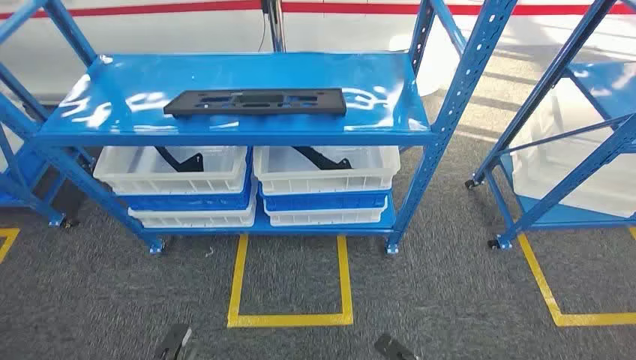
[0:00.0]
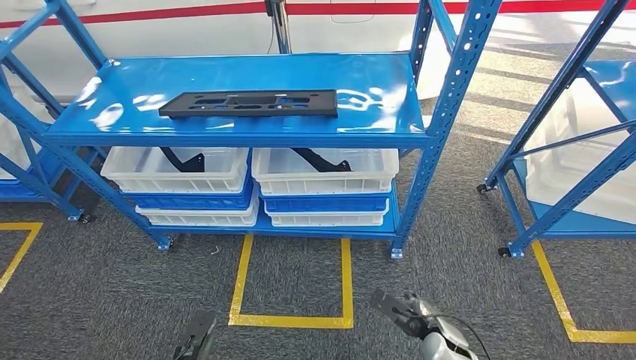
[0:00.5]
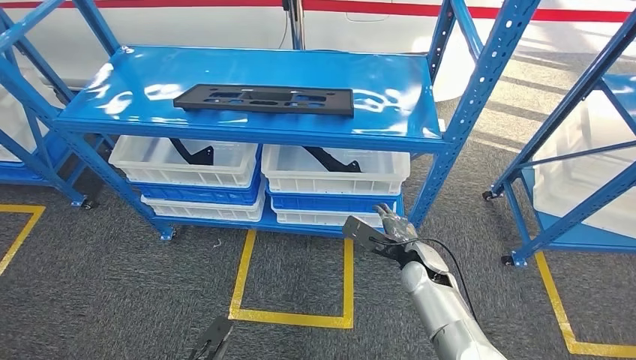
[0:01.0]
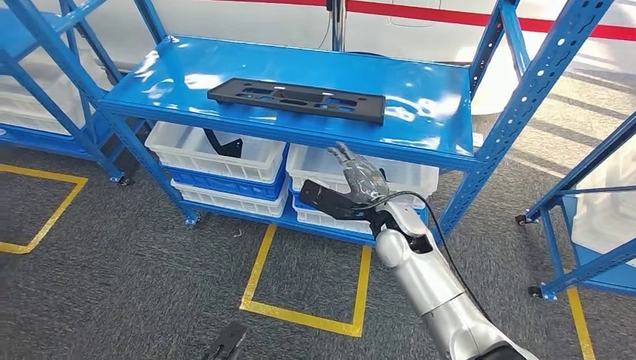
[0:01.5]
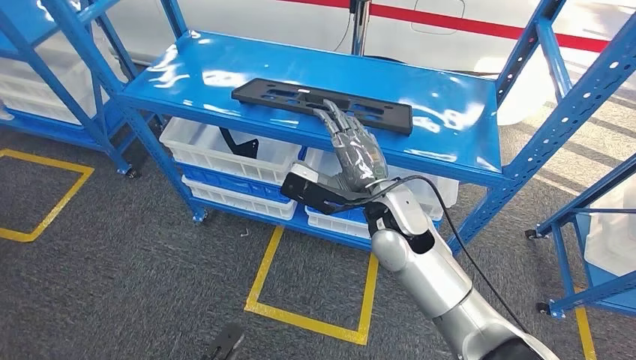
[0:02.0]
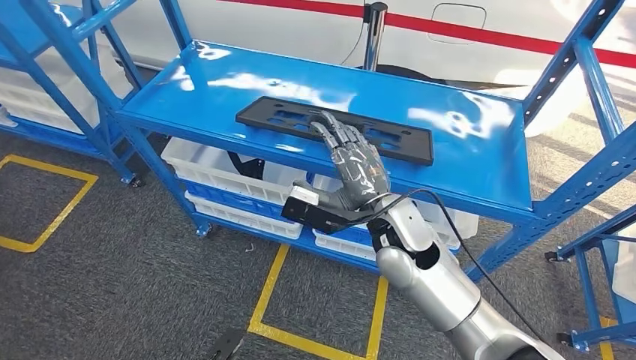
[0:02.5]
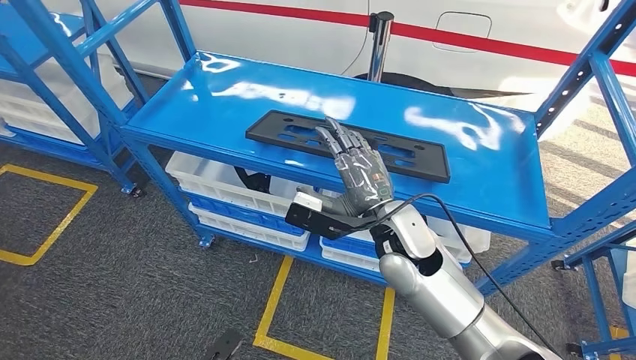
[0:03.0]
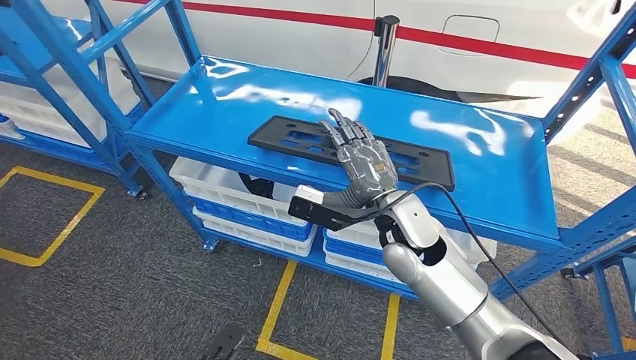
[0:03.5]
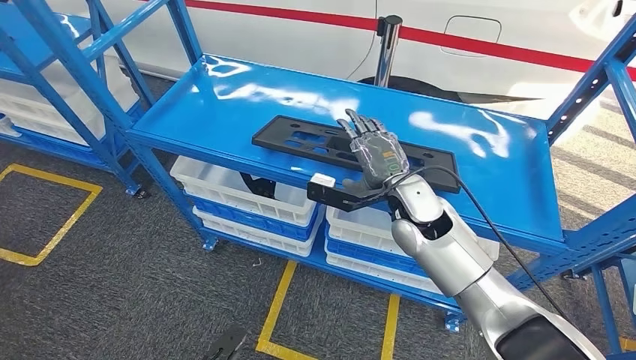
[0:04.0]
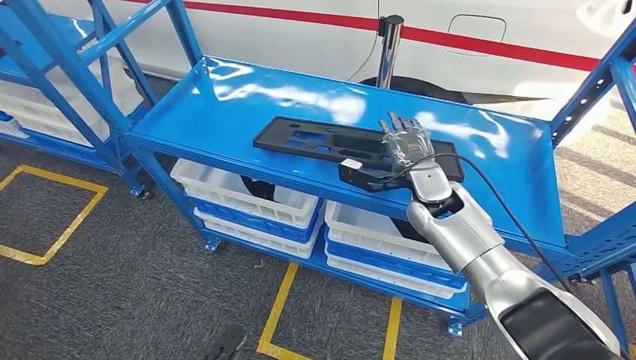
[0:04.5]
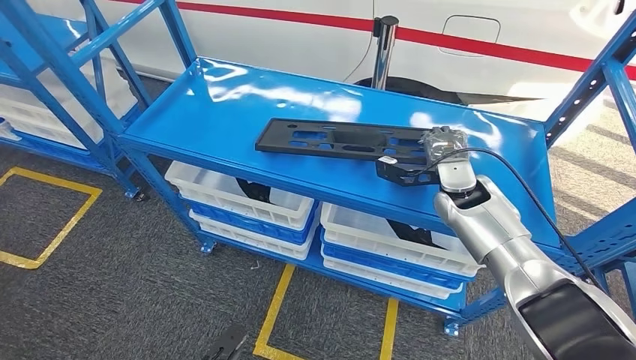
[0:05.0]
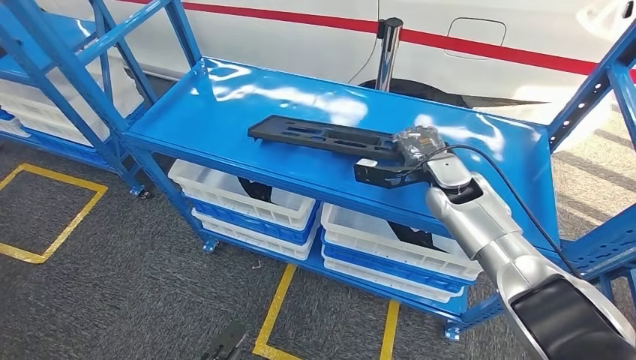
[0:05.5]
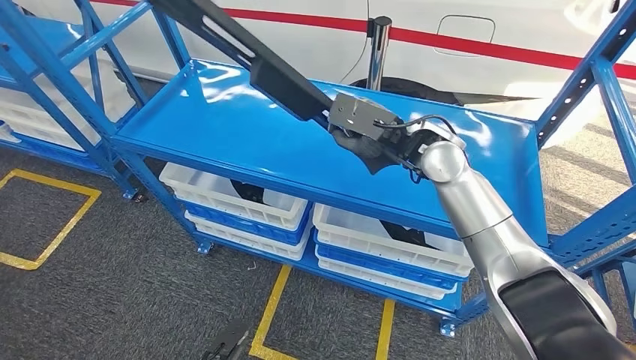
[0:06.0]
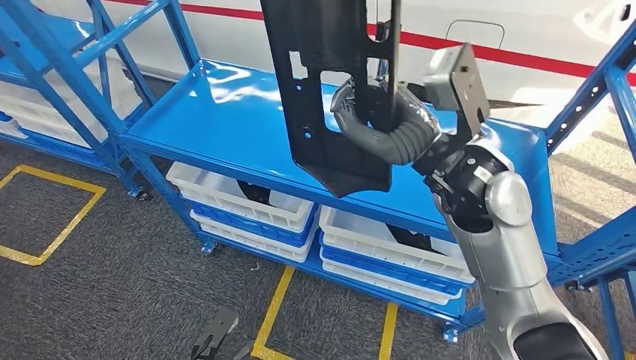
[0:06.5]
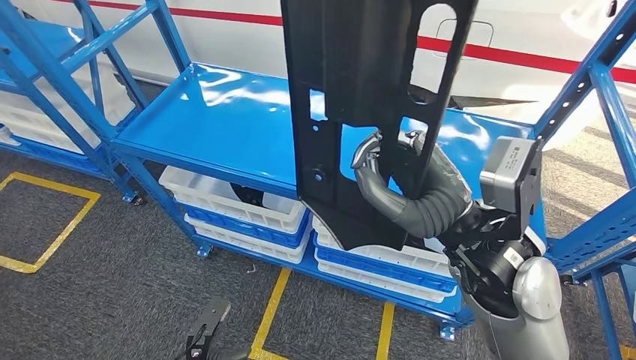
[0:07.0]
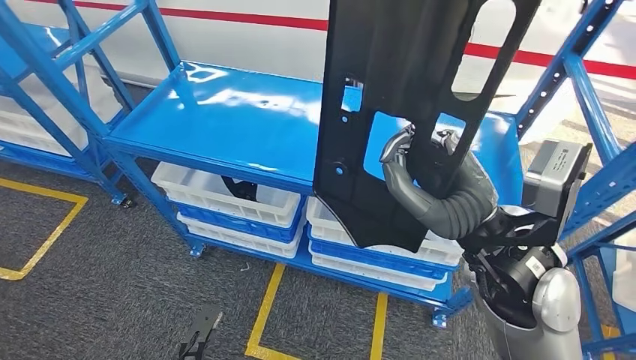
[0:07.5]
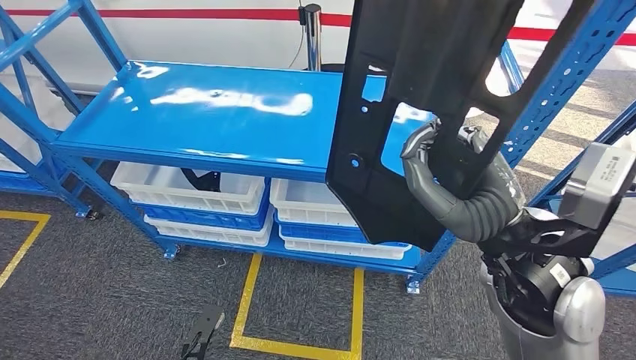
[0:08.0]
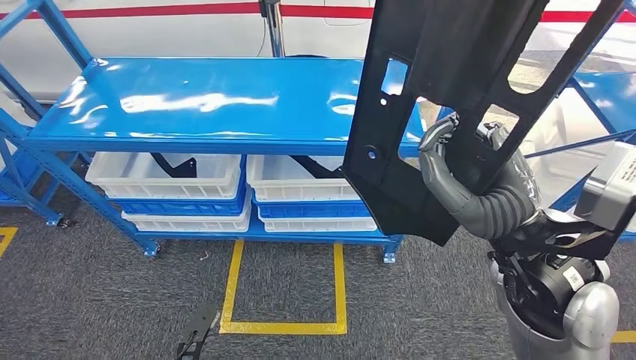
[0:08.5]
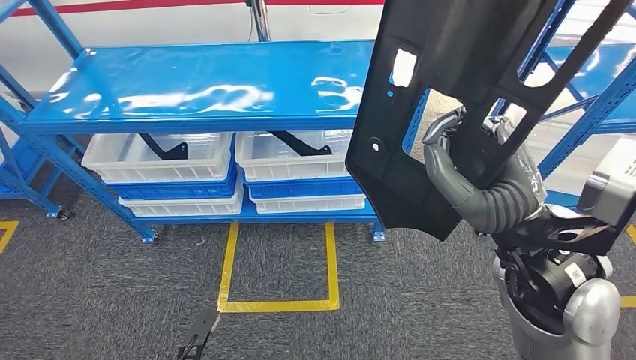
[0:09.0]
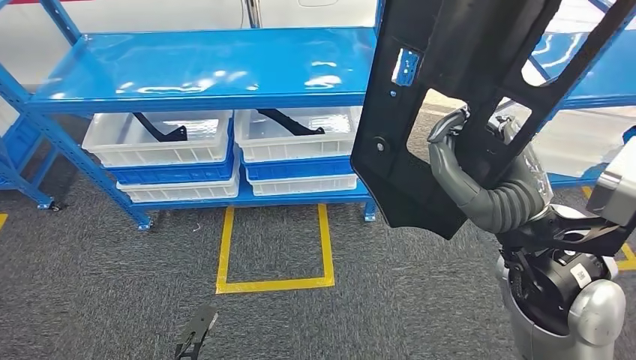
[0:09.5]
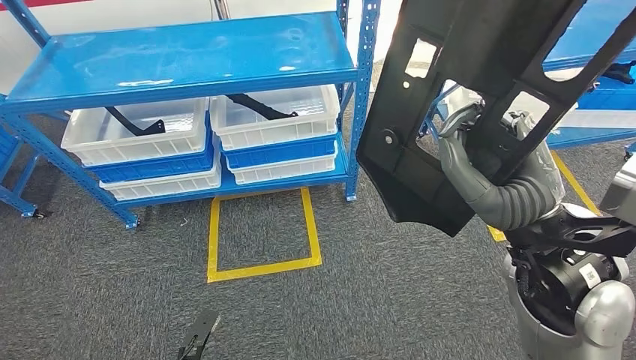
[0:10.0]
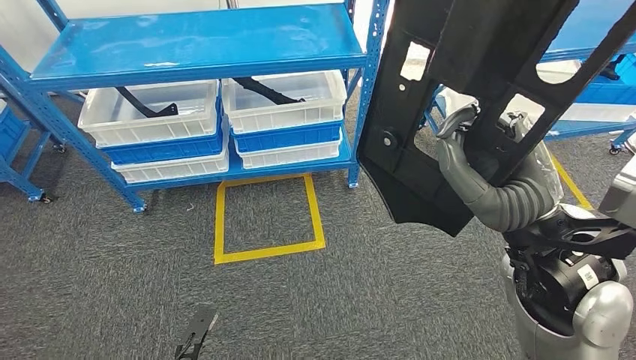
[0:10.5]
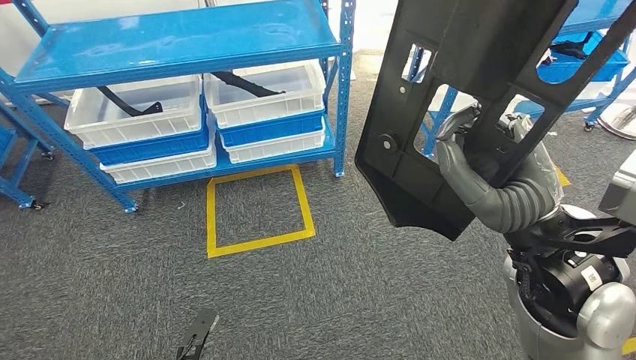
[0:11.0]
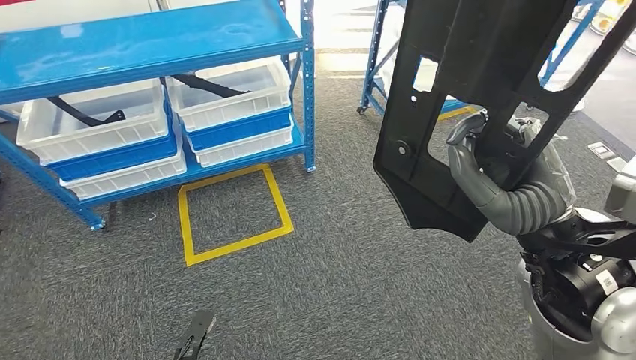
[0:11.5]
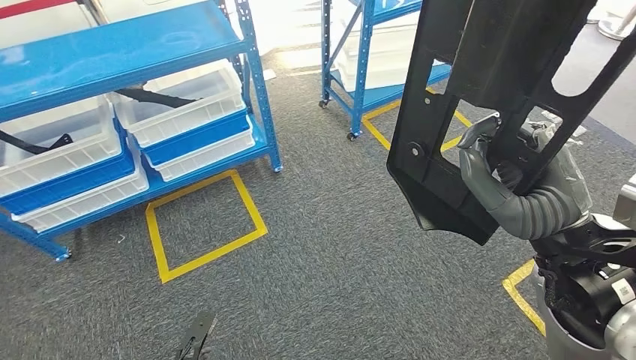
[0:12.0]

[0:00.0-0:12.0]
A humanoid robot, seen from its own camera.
Step, 0:00.0 to 0:07.5: Pick up the large material from the shelf.

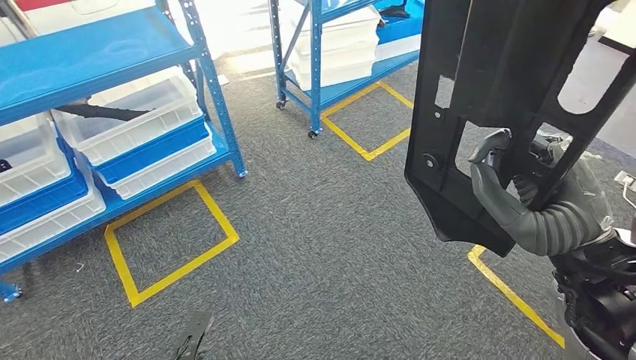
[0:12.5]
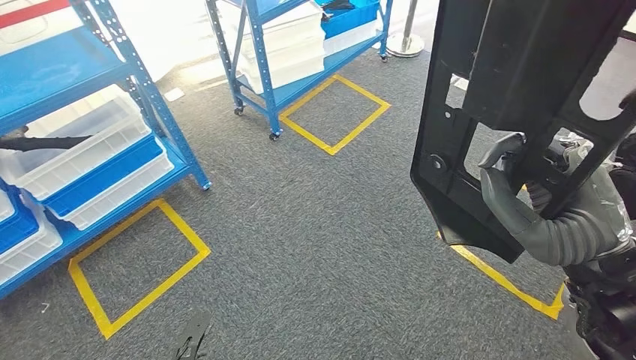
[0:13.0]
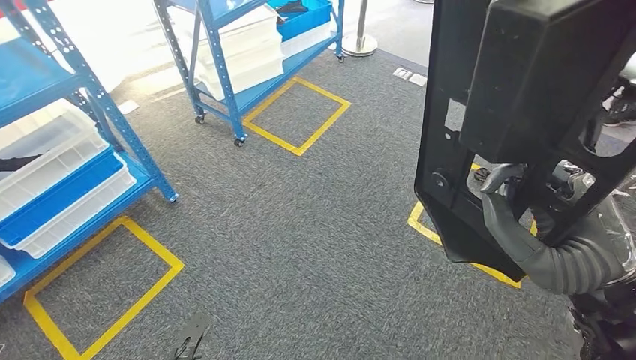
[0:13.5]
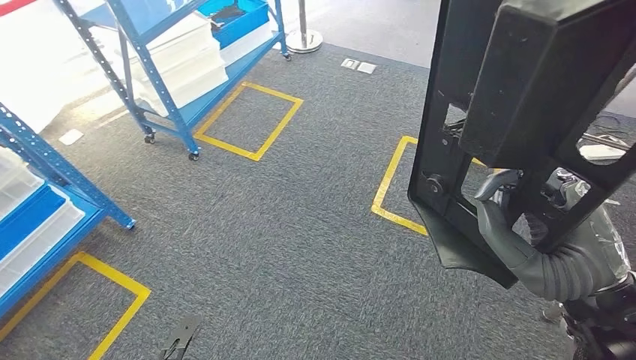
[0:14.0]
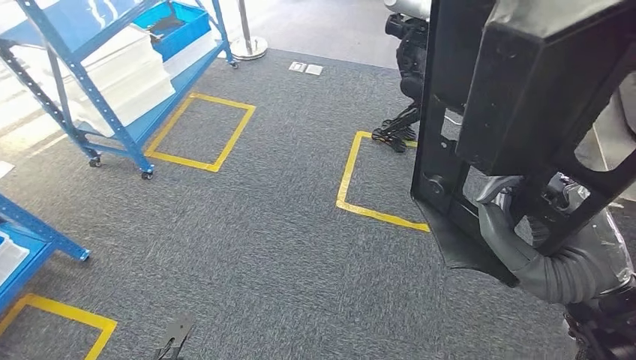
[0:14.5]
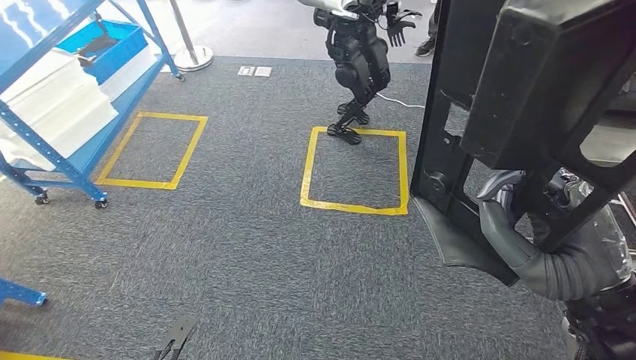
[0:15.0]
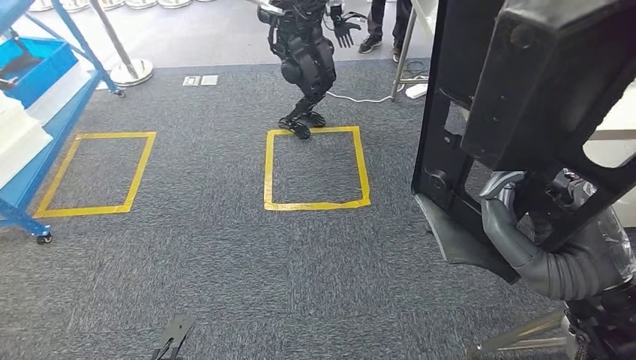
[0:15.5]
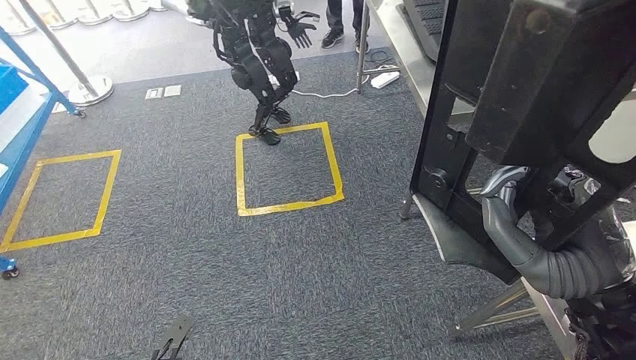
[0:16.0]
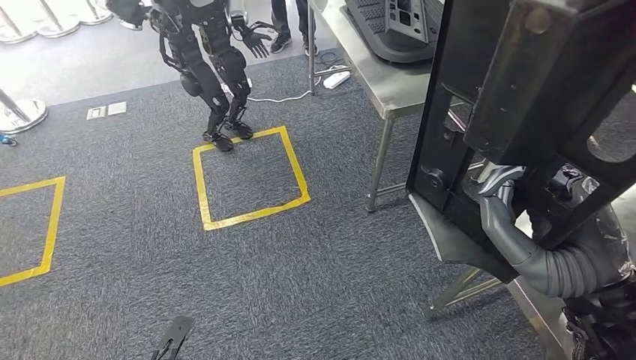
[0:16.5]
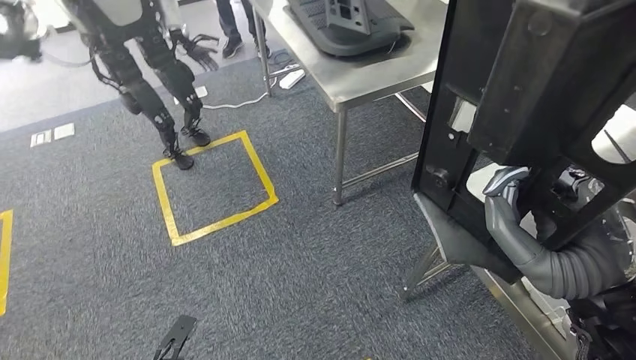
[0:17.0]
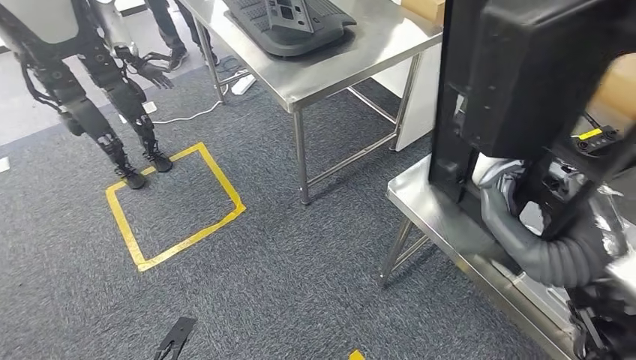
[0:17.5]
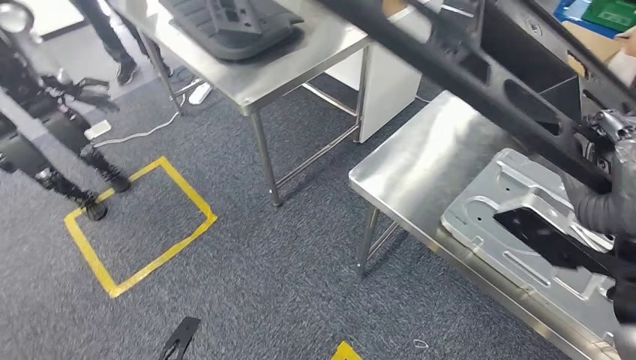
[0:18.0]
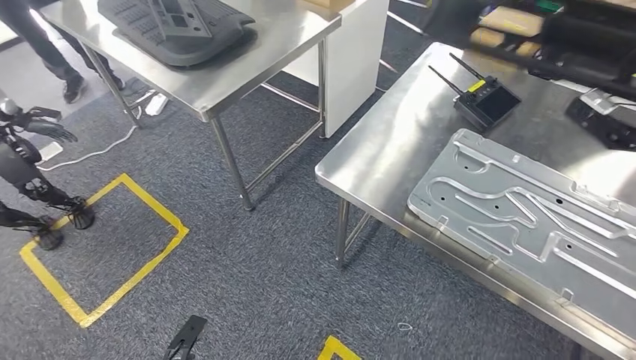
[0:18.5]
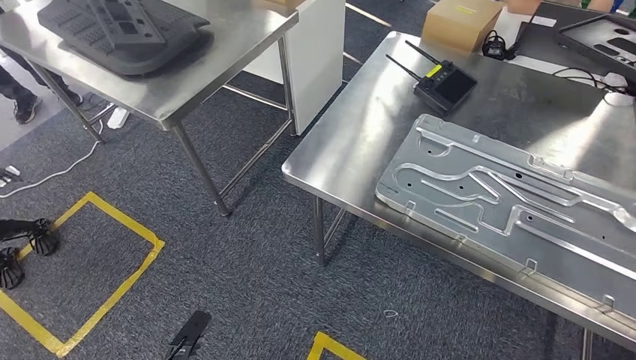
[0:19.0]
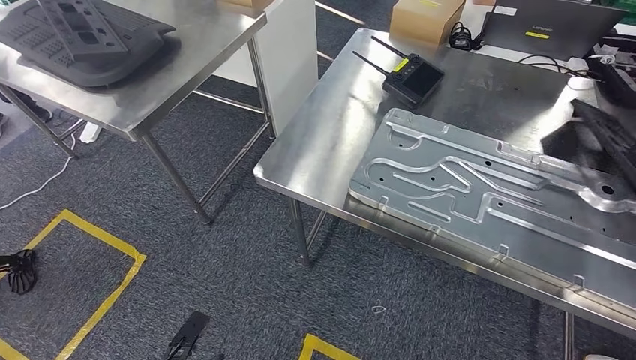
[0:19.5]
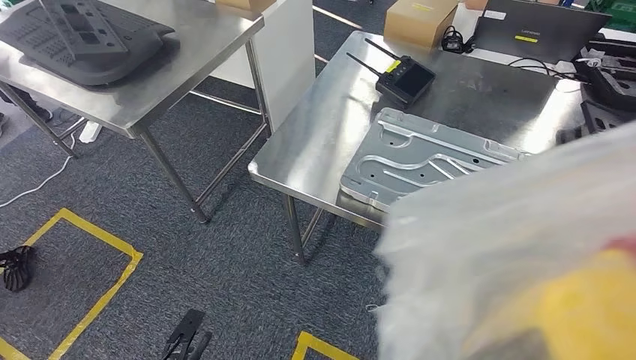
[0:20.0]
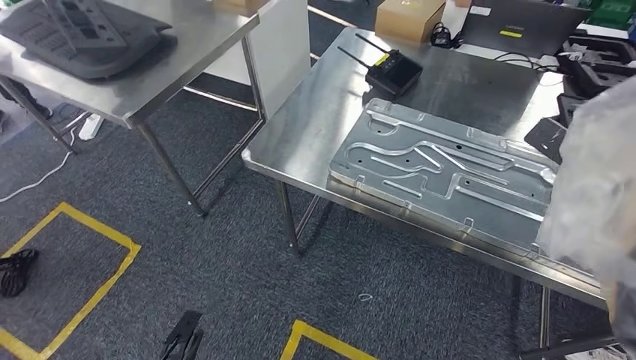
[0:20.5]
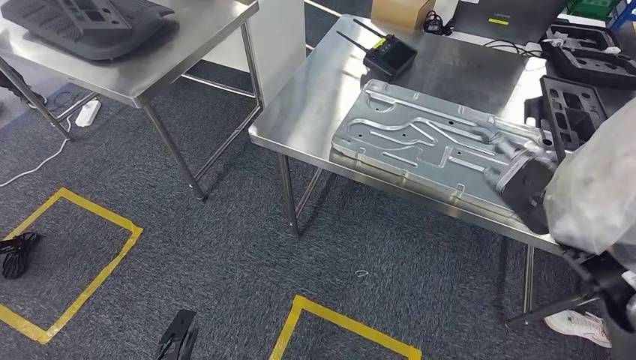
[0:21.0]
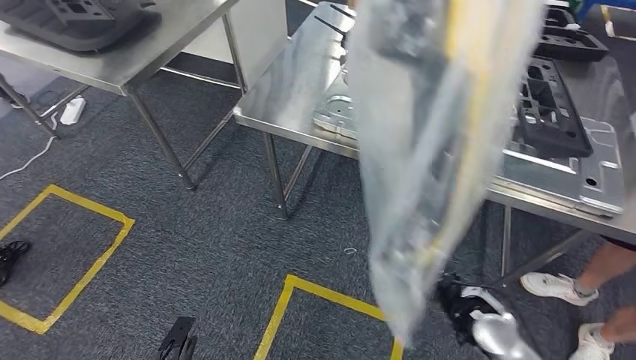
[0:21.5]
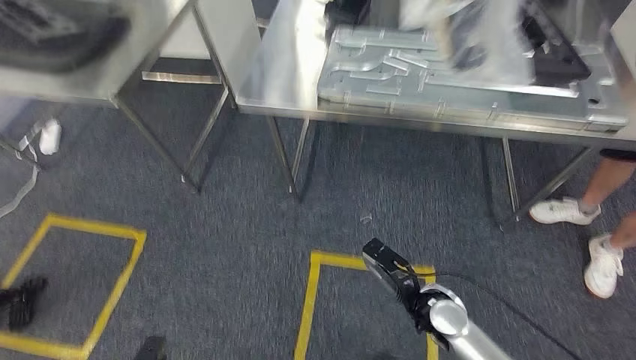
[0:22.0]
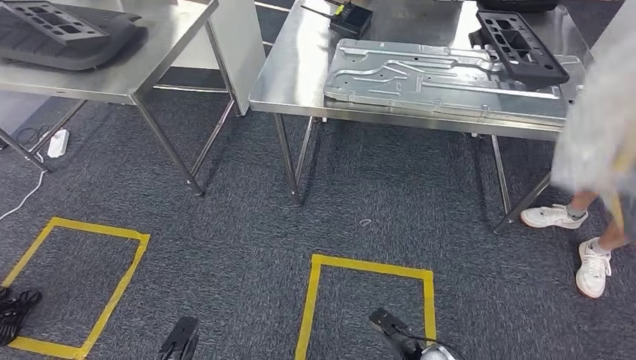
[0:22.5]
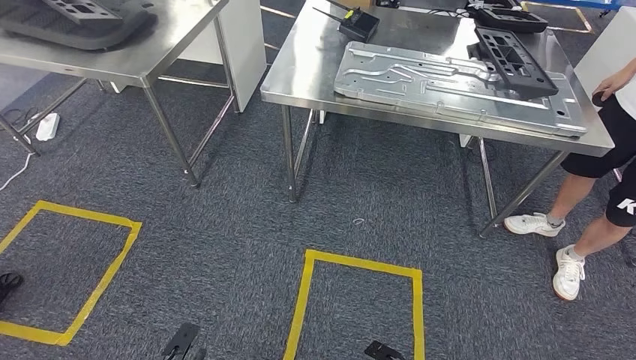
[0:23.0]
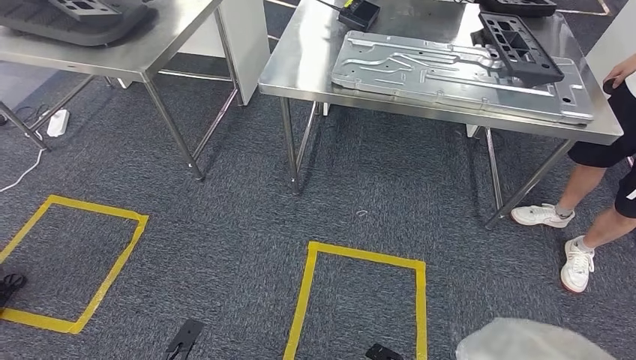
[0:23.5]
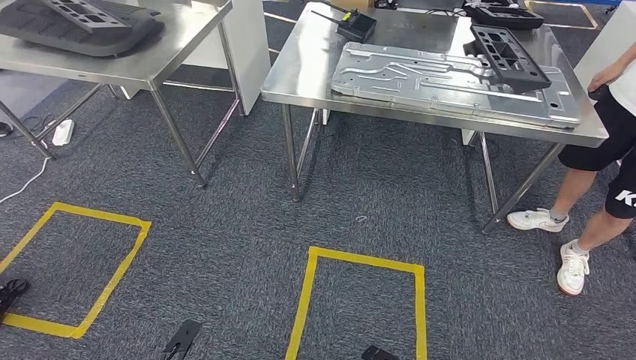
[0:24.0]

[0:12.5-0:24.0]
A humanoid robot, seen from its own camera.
Step, 0:12.5 to 0:18.0: Move the large material to the workbench.
Step, 0:18.5 to 0:23.5: Insert the large material into the corresponding slot on the workbench.
